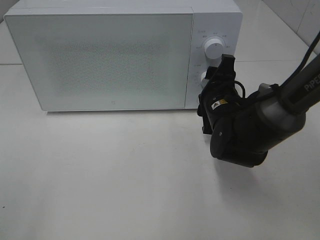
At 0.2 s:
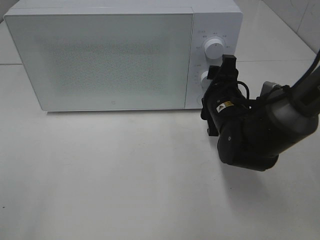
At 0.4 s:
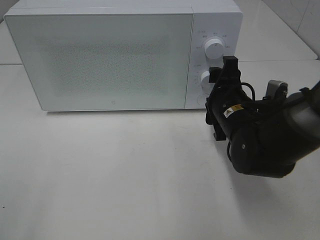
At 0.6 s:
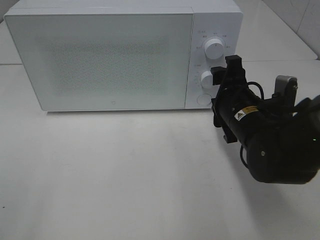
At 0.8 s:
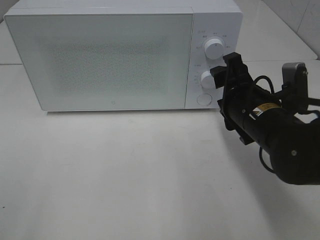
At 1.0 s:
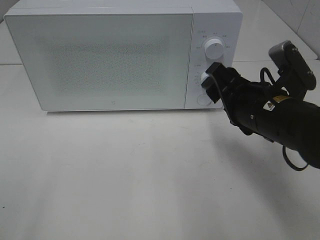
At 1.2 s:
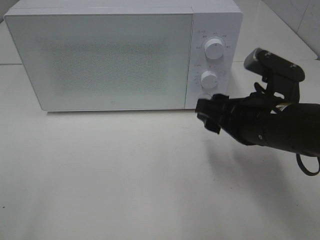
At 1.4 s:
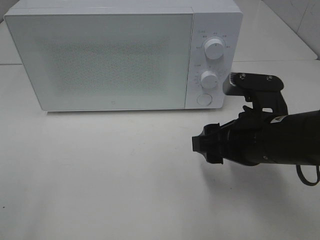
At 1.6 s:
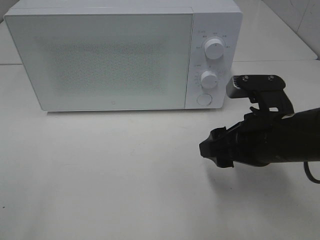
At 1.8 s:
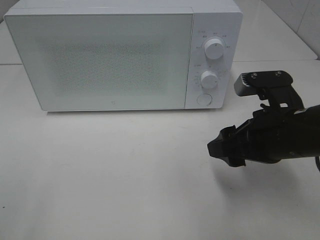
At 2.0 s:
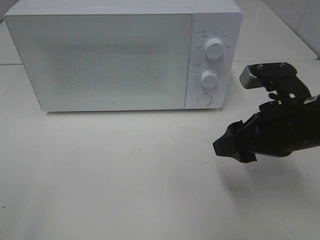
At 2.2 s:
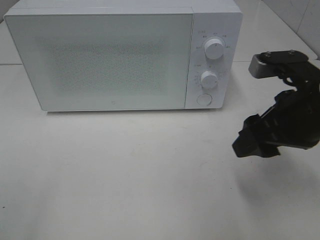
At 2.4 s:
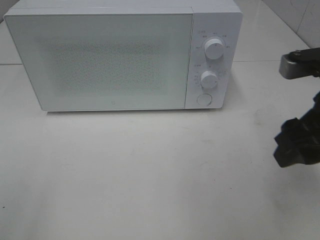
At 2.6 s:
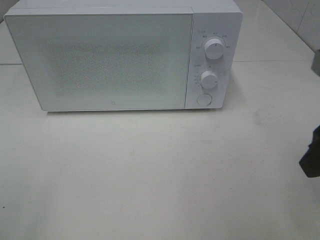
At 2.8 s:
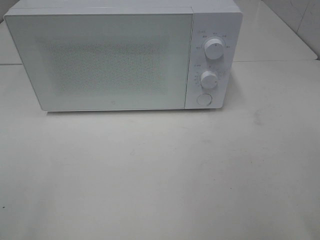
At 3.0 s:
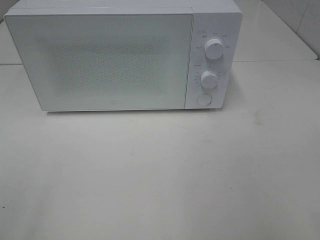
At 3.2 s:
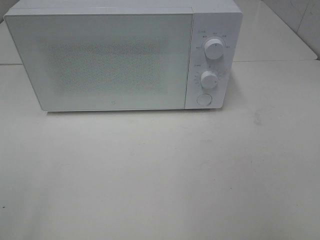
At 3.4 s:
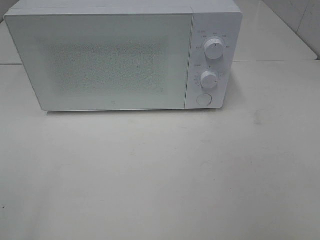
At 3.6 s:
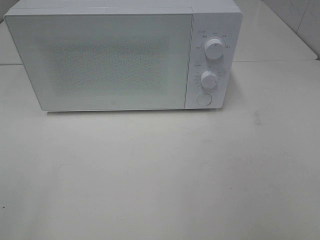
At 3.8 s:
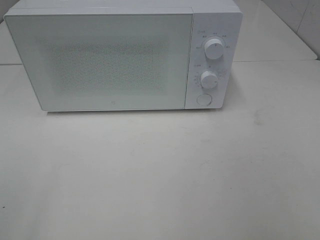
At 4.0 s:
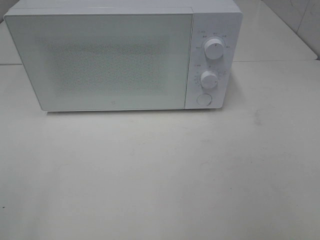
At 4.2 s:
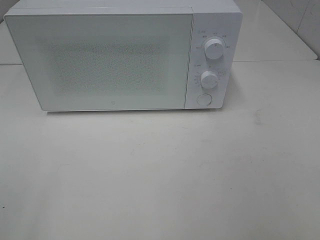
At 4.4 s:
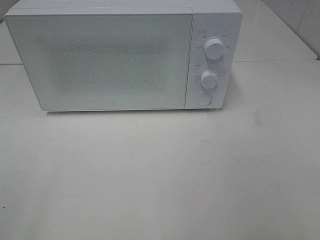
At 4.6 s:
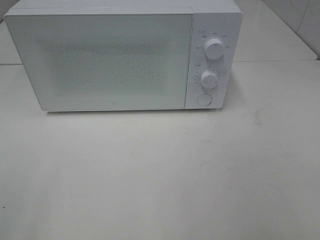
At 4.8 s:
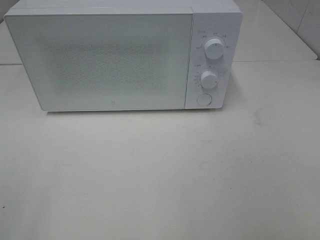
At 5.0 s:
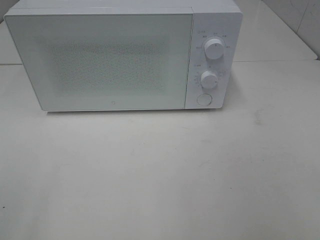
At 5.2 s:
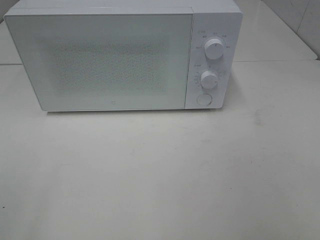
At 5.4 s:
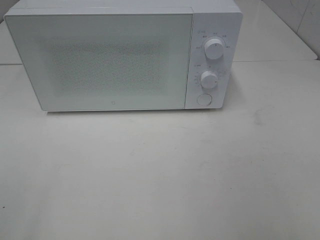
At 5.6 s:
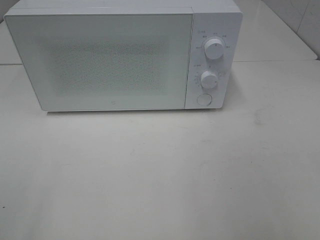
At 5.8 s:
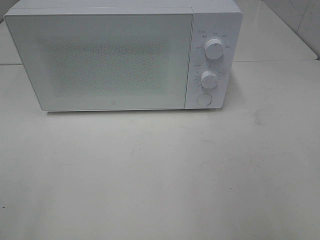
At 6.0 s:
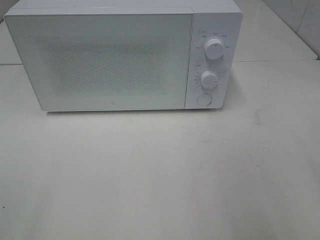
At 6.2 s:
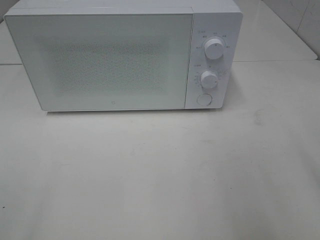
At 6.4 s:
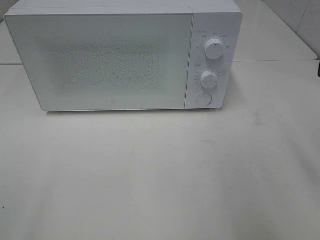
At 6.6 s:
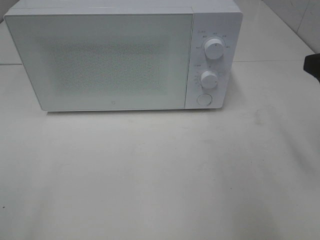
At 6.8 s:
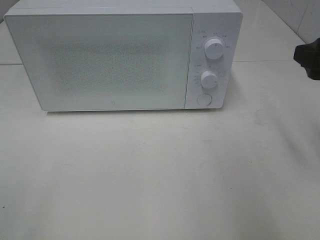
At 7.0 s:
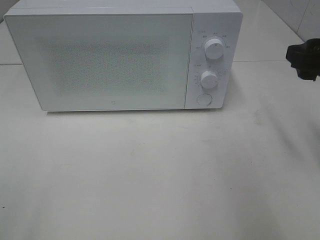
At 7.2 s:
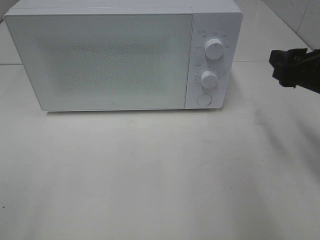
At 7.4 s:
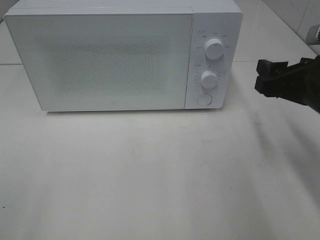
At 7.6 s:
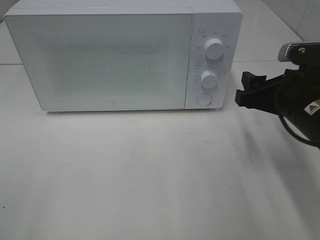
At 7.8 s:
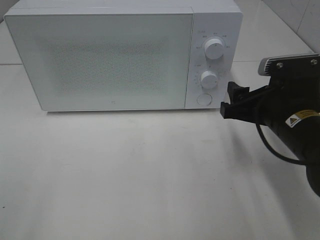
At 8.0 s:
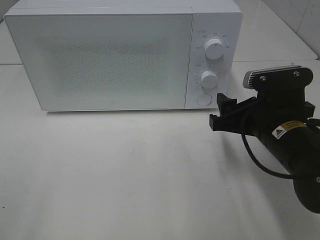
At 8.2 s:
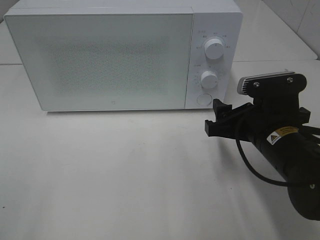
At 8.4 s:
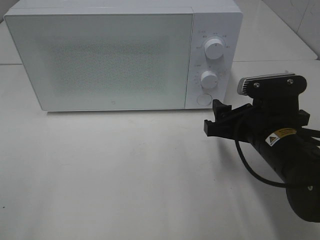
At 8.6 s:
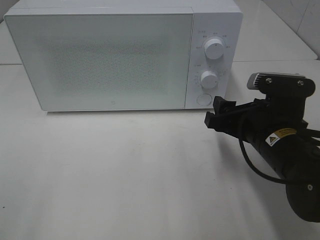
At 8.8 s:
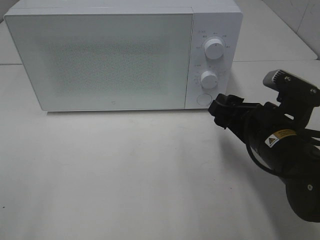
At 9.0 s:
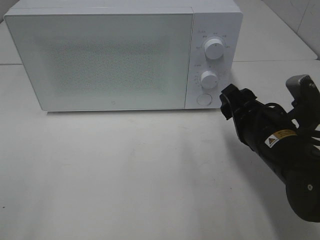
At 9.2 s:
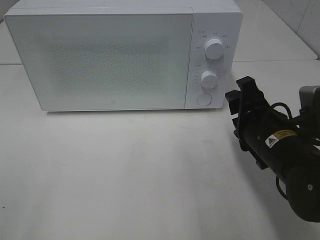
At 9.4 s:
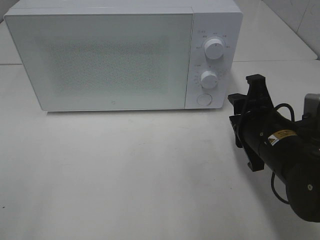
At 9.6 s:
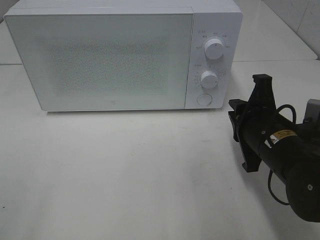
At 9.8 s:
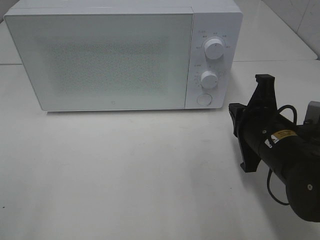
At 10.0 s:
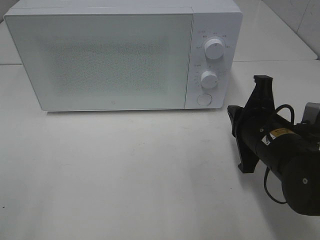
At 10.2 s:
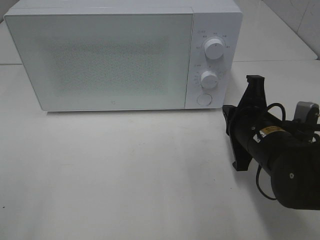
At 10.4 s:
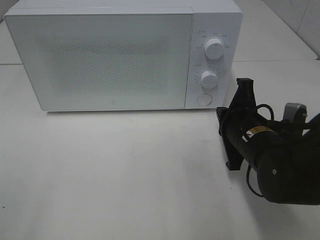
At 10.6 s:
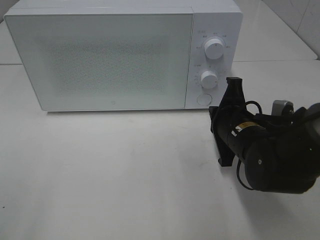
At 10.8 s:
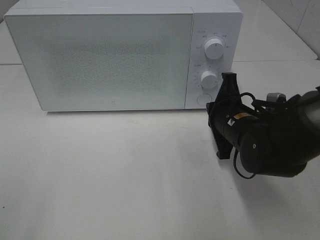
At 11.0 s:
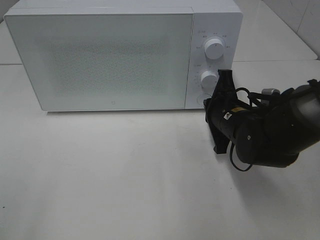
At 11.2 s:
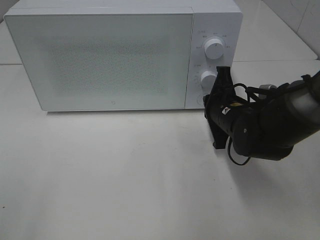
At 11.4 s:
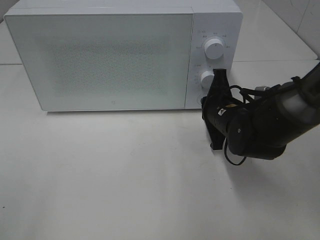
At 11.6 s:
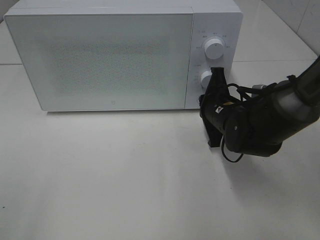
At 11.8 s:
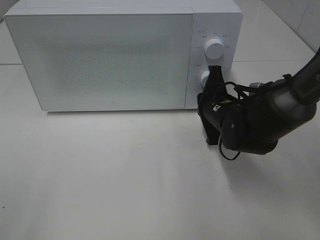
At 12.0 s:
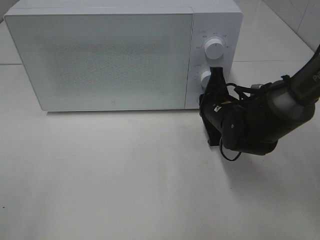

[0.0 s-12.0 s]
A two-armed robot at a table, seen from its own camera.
Task of the whole recording: Heat the burger.
0.0 to 1.6 s: The right gripper shifts some 10 cm backward and upward.
1.6 to 3.0 s: The right gripper is displaced upward, backward and to the right by approximately 20 cm.
6.0 to 7.6 s: The right gripper goes approximately 20 cm forward, downward and to the left.
7.6 to 9.0 s: The right gripper changes place by roughly 5 cm.
9.0 to 10.4 s: The right gripper closes.
10.4 to 12.0 s: The right gripper is displaced forward by roughly 10 cm.

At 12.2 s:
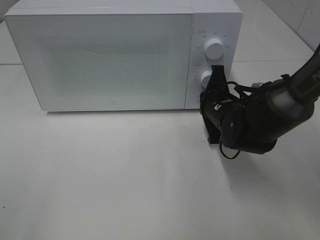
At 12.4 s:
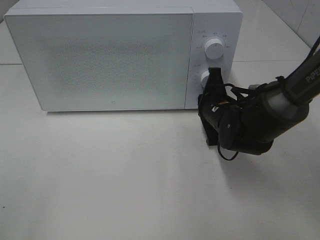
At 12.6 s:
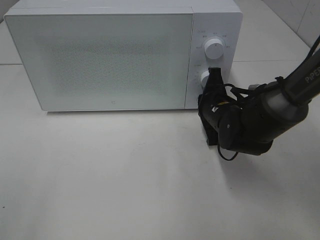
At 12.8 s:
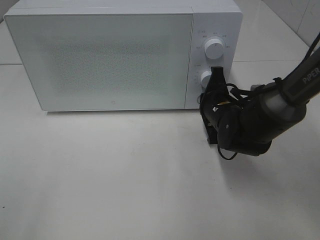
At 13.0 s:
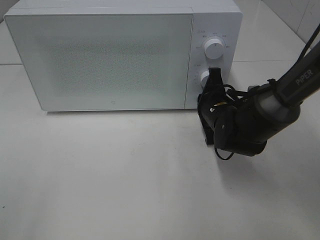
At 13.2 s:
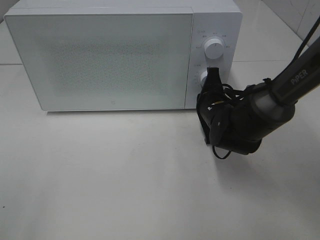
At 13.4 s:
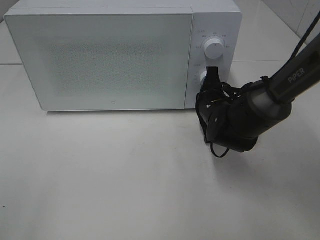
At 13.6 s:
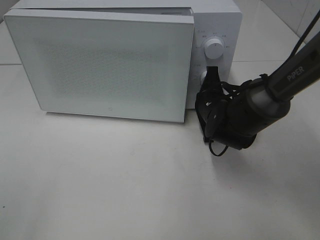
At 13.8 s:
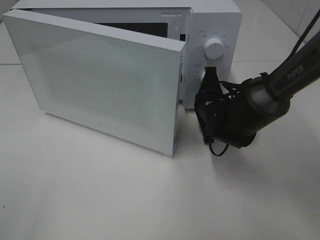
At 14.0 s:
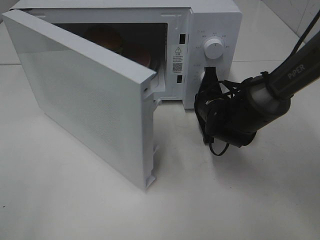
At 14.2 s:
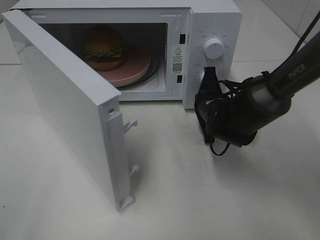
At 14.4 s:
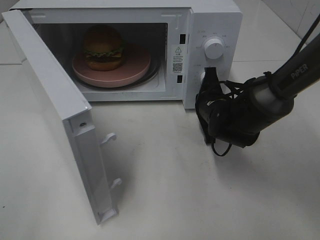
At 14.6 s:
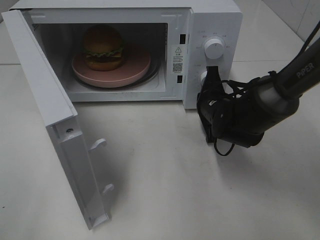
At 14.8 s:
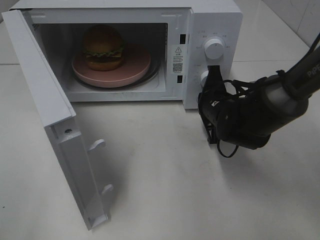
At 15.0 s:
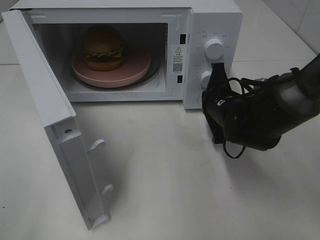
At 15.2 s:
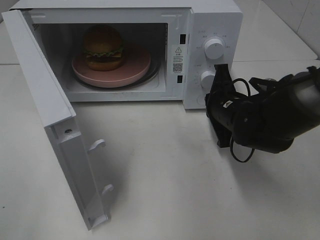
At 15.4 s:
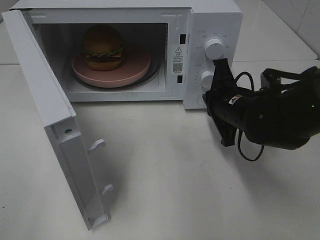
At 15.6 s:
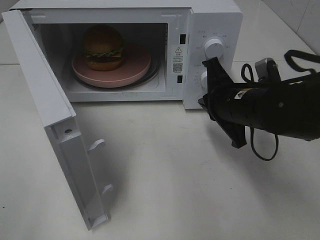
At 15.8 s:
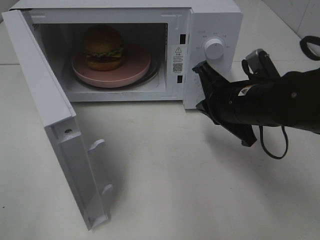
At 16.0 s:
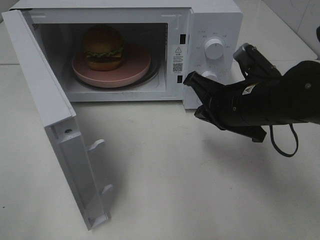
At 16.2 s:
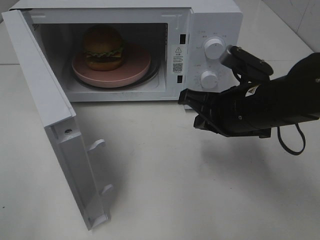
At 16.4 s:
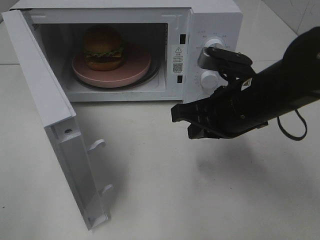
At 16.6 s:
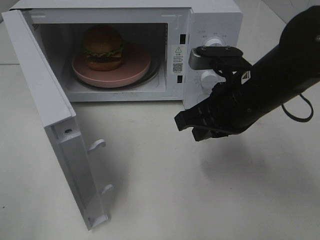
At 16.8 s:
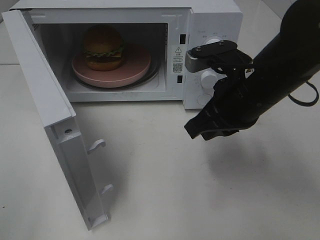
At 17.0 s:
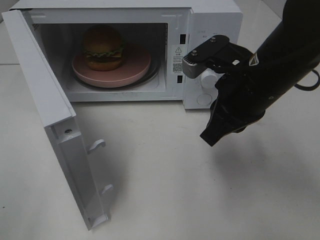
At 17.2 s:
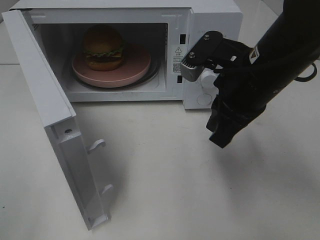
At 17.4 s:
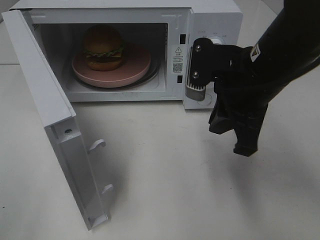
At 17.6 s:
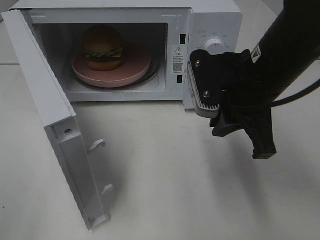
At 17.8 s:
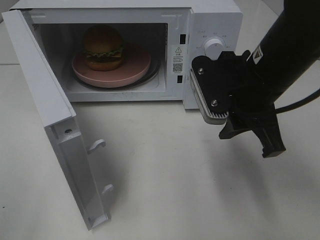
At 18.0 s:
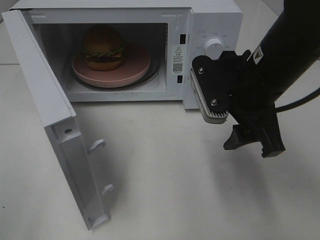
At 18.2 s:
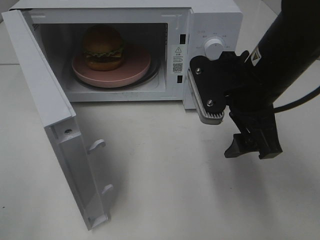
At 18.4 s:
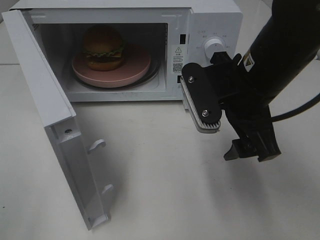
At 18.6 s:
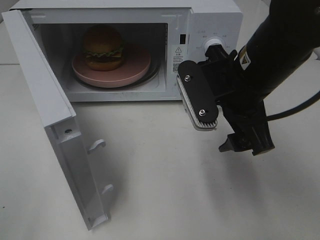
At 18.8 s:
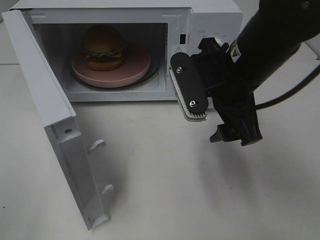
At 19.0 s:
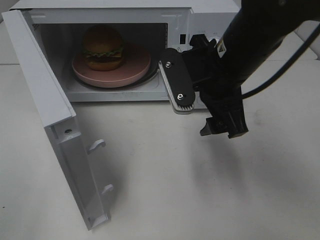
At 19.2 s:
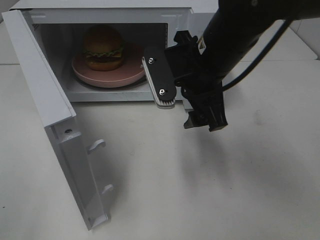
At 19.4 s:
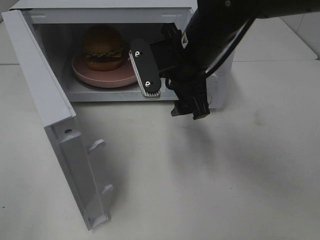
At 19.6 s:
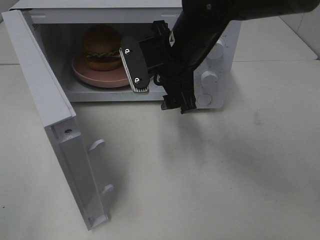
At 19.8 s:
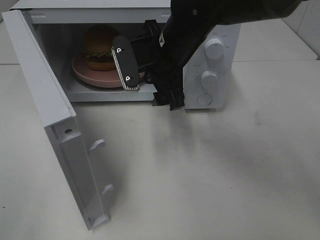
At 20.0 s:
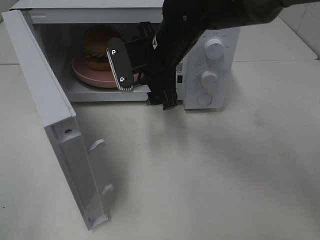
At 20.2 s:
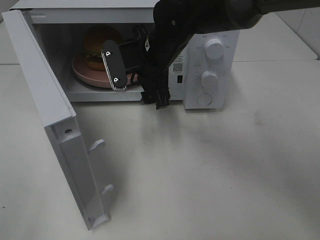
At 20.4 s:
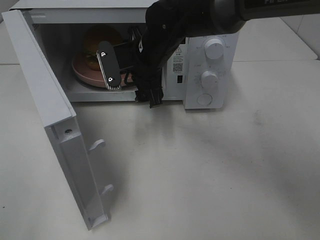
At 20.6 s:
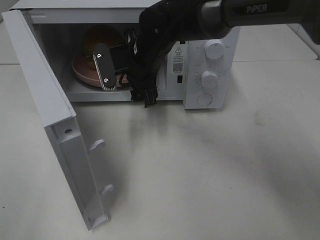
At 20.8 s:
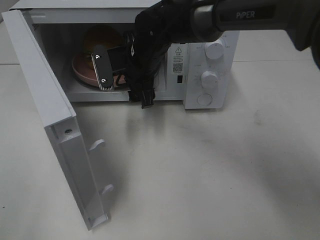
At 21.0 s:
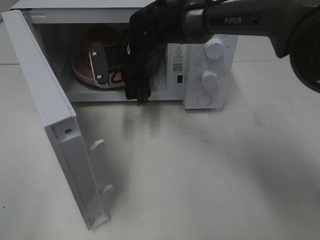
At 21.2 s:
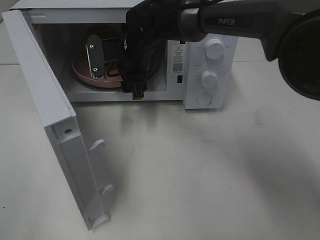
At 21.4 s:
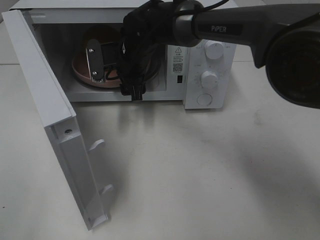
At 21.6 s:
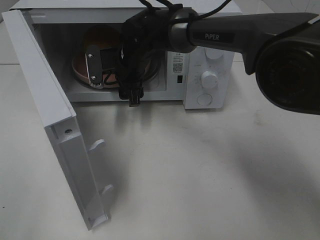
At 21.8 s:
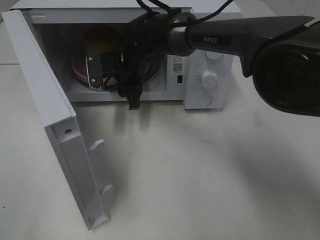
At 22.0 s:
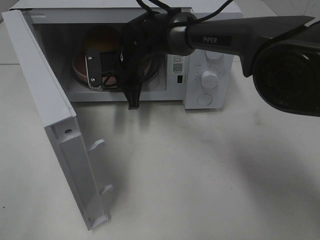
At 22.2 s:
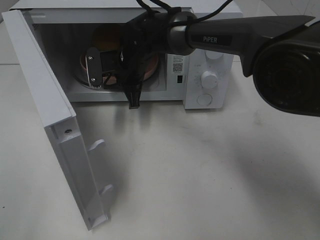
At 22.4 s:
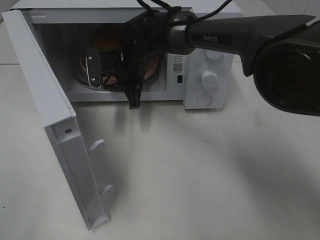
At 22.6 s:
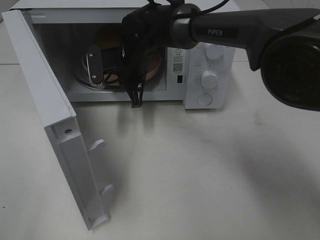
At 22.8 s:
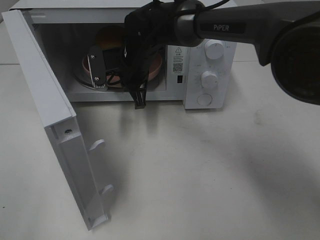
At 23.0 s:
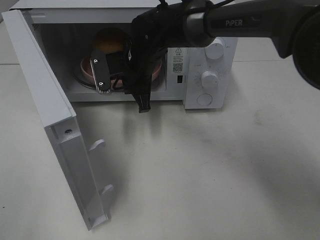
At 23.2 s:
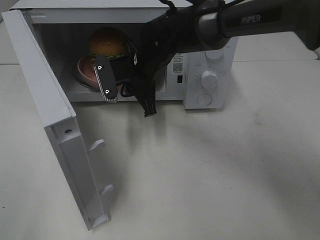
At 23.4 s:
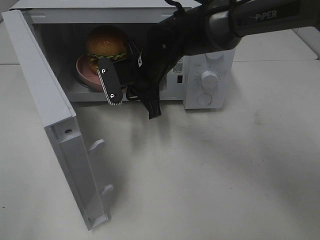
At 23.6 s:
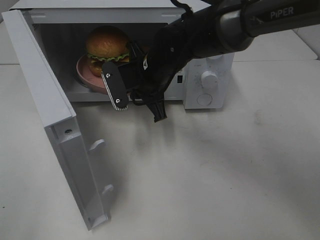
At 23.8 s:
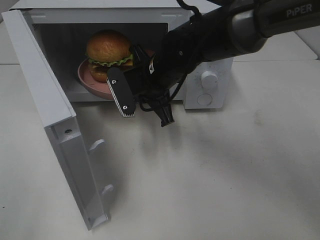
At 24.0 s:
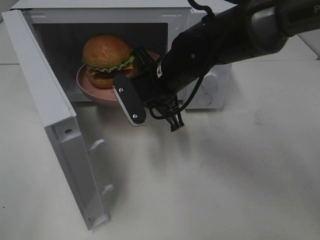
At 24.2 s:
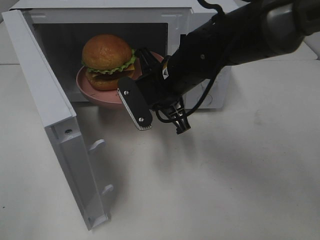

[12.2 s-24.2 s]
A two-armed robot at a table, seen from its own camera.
Task of the whole recording: Heat the burger.
Step, 12.2 to 15.4 s: Right hand: press the switch.
Step, 15.6 to 22.2 s: Right hand: grab the plate with the hamburger.
12.2 to 13.8 s: The grippers move only a little.
13.8 to 15.2 s: The right gripper ends up some 5 cm from where it was.
15.2 to 16.6 s: The right gripper is displaced upward and backward by some 10 cm.
16.6 to 18.2 s: The right gripper opens up.
18.2 to 19.8 s: The right gripper moves to the left and forward, approximately 15 cm.
19.8 to 21.2 s: The right gripper moves forward and to the left, about 10 cm.
21.2 to 22.6 s: The right gripper closes its fingers.
22.6 to 24.2 s: The right gripper goes about 15 cm backward and to the right.
